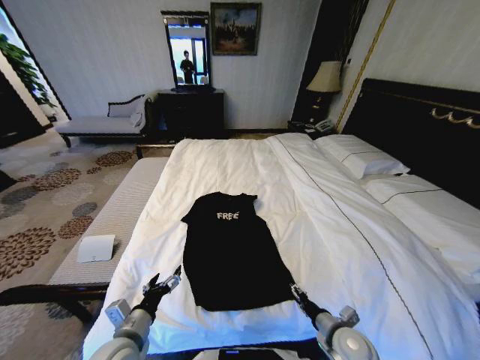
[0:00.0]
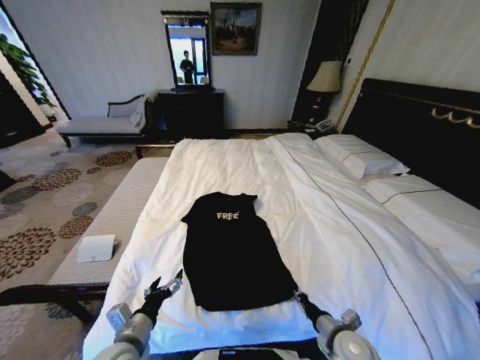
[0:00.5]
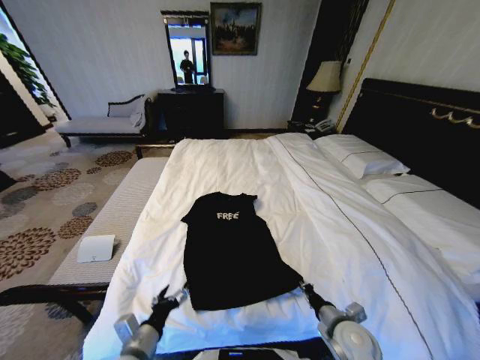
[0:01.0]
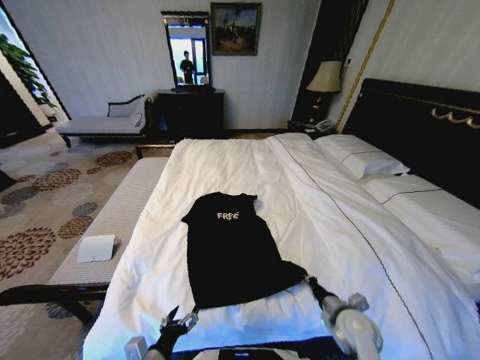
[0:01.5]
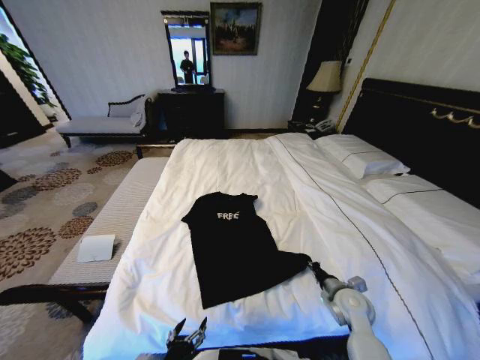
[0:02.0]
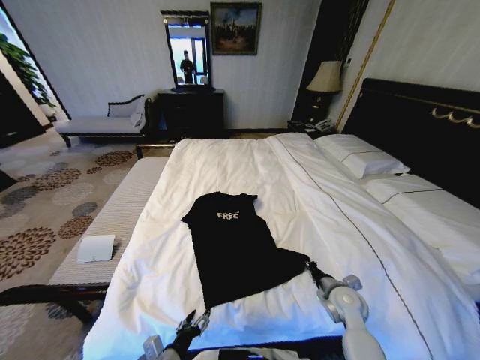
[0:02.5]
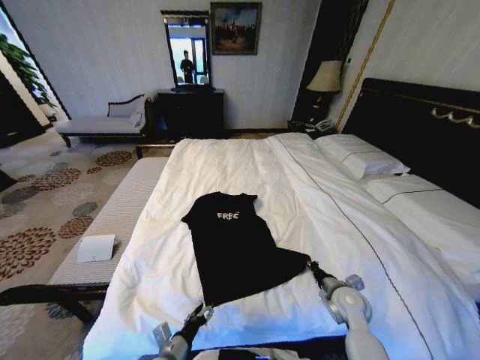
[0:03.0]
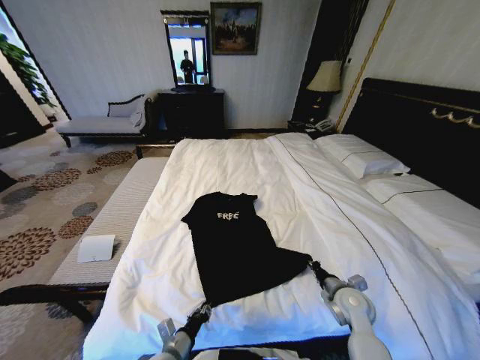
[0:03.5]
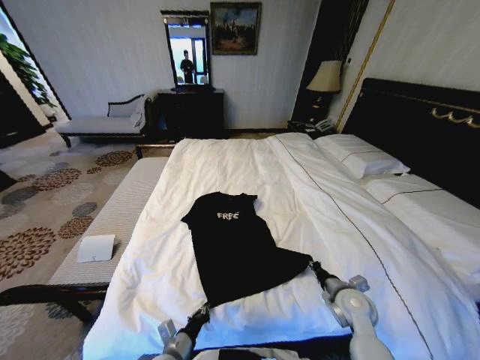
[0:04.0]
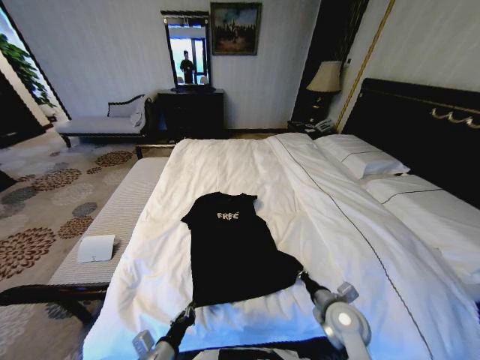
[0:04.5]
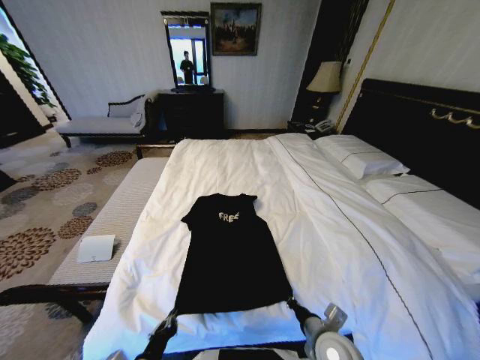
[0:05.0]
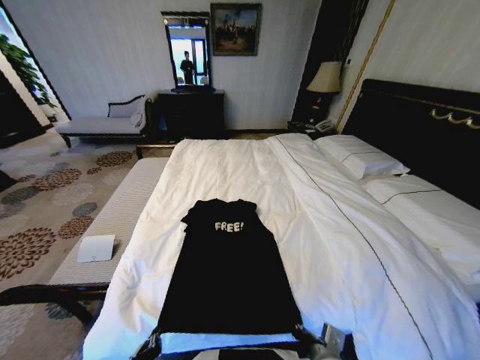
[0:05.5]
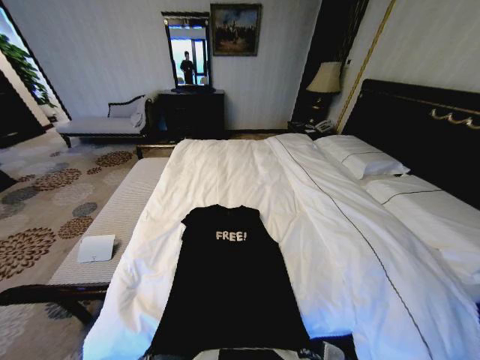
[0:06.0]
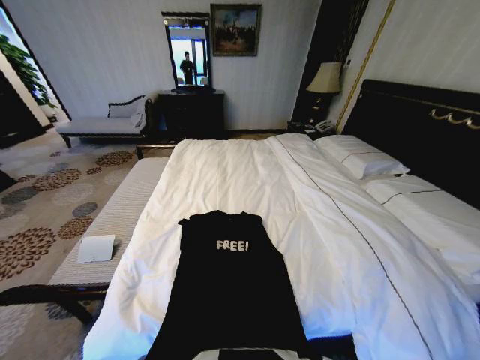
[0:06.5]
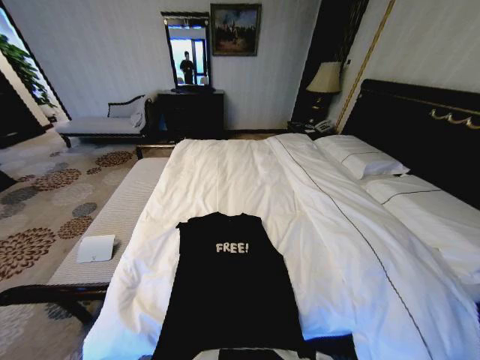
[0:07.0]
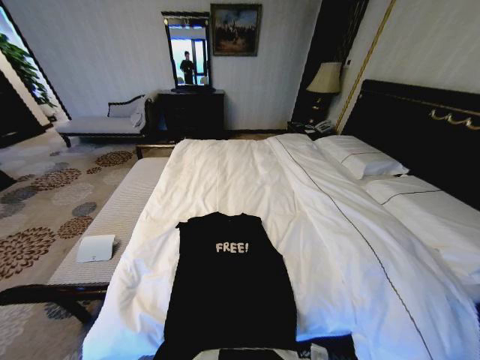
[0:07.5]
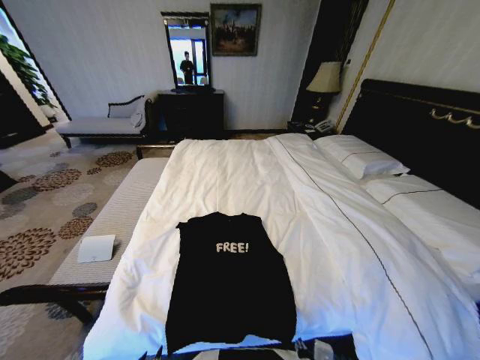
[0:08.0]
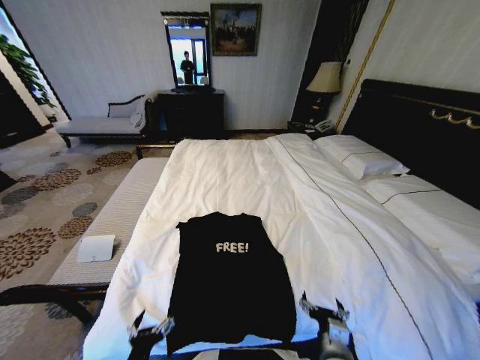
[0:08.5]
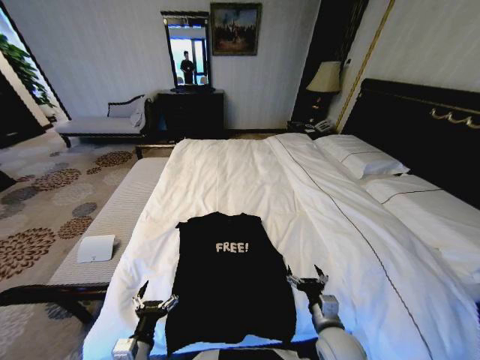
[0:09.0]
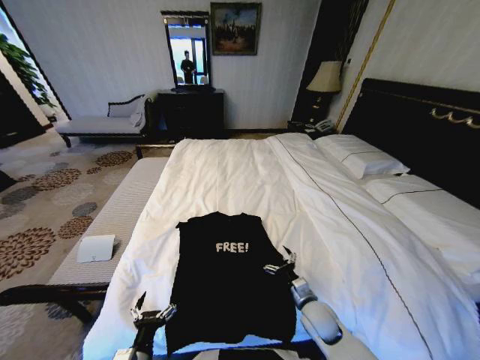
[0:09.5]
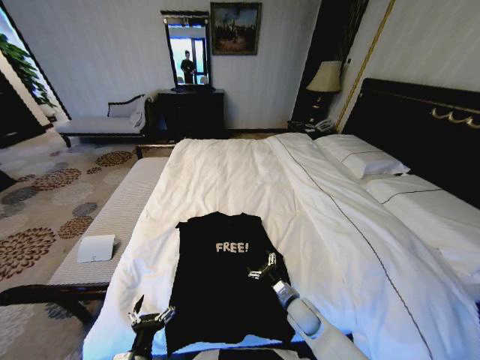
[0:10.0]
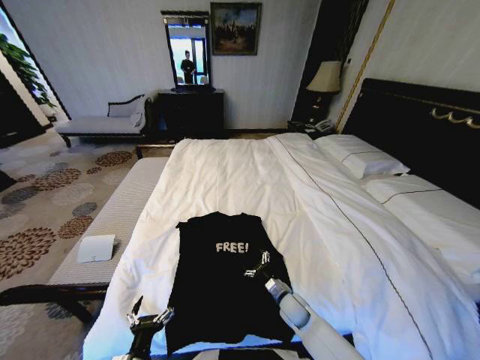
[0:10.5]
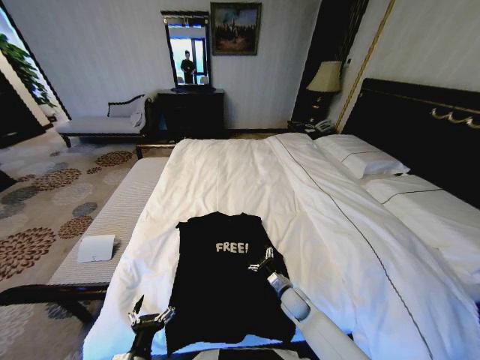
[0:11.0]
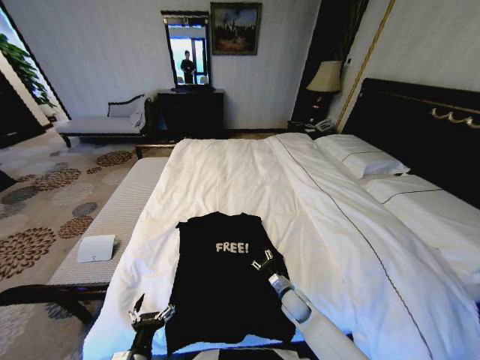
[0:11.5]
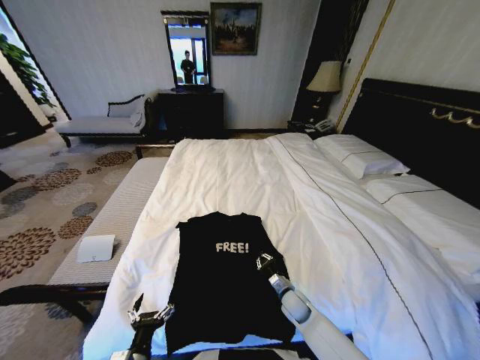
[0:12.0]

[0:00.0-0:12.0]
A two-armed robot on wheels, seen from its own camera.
Task of the whole recording: Fold the clothes on the bed.
0:00.0 to 0:02.0: The right gripper travels forward by some 10 cm, and closes up. The left gripper travels backward and downward by about 10 cm.
0:02.0 to 0:04.0: The left gripper moves forward and downward, roughly 10 cm, and closes its fingers.
0:04.0 to 0:06.0: The left gripper travels backward, upward and to the left by about 20 cm. The right gripper travels backward and to the left by about 25 cm.
0:06.0 to 0:08.0: The left gripper opens. The right gripper opens its fingers.
0:08.0 to 0:10.0: The left gripper moves forward, approximately 5 cm, and opens, while the right gripper moves forward and downward, about 20 cm, and opens up.
0:10.0 to 0:12.0: The right gripper changes place by about 5 cm, and closes up.

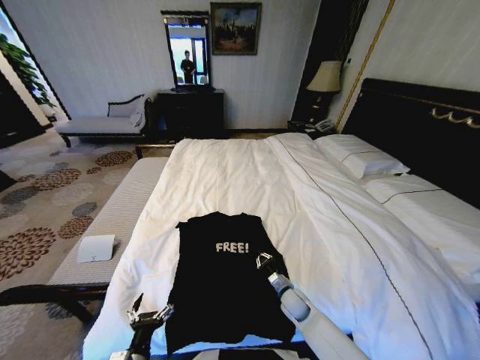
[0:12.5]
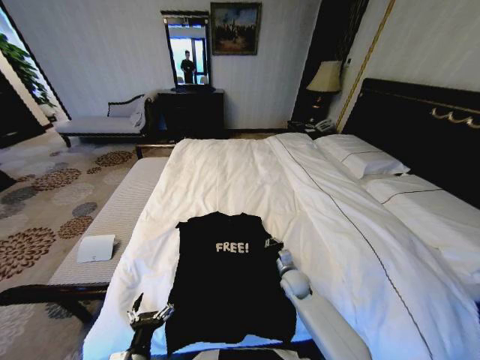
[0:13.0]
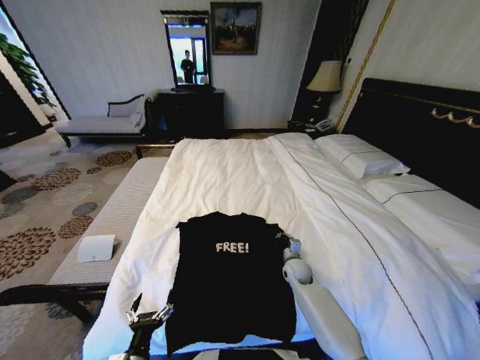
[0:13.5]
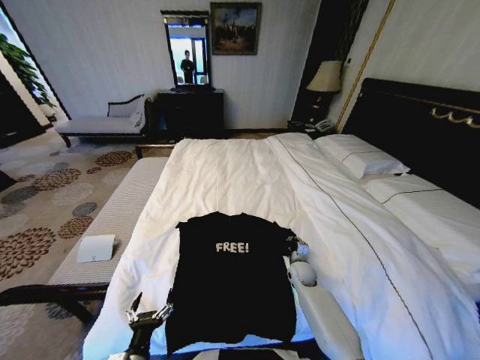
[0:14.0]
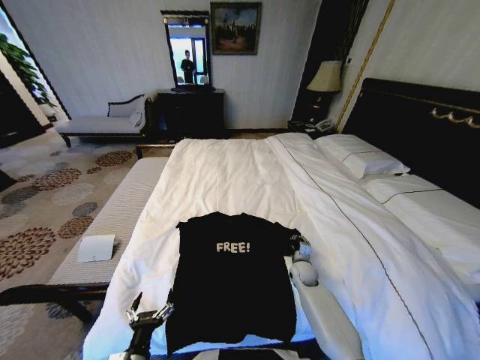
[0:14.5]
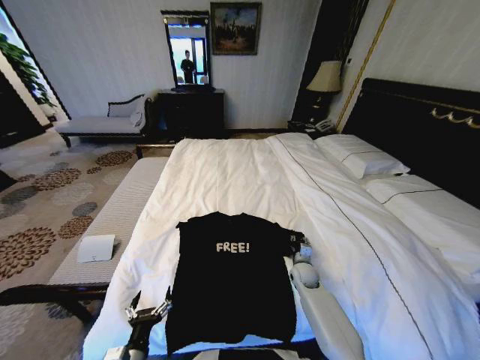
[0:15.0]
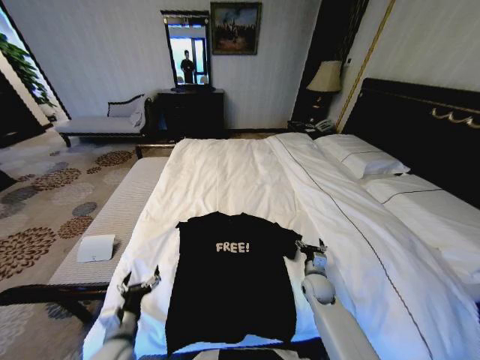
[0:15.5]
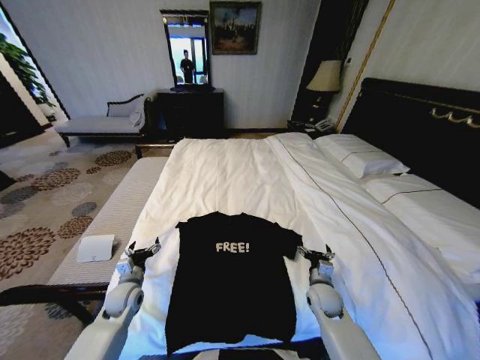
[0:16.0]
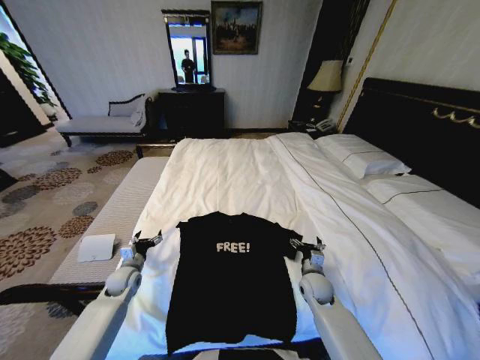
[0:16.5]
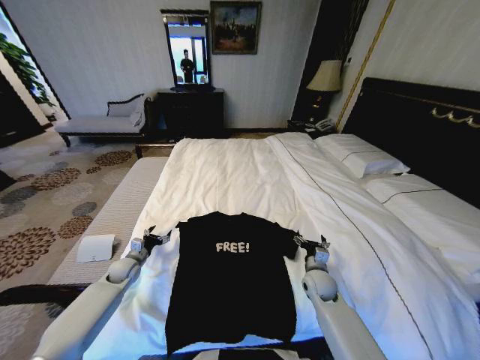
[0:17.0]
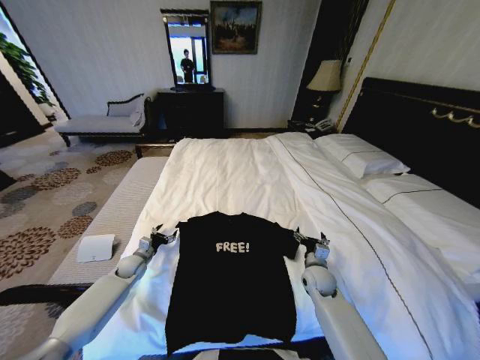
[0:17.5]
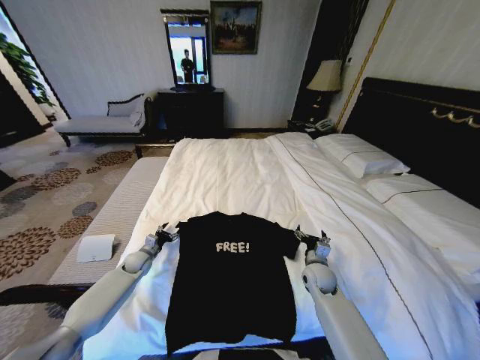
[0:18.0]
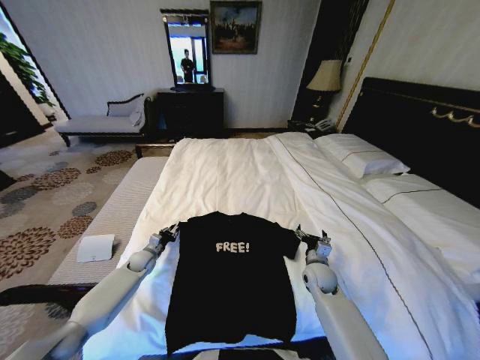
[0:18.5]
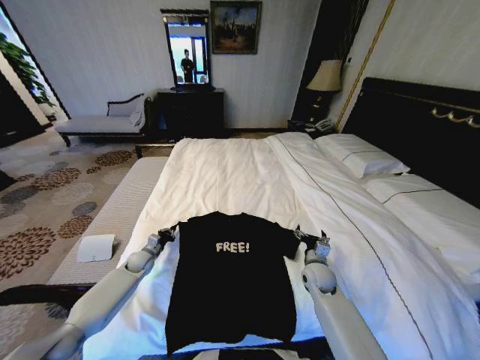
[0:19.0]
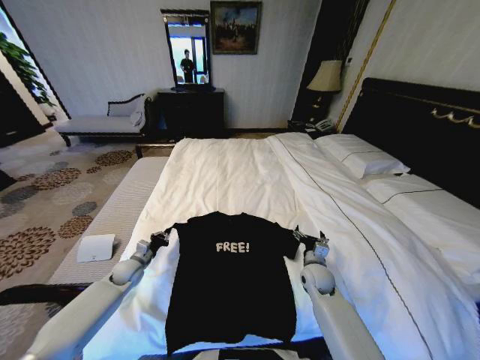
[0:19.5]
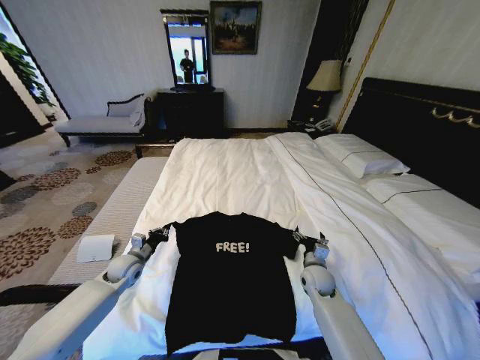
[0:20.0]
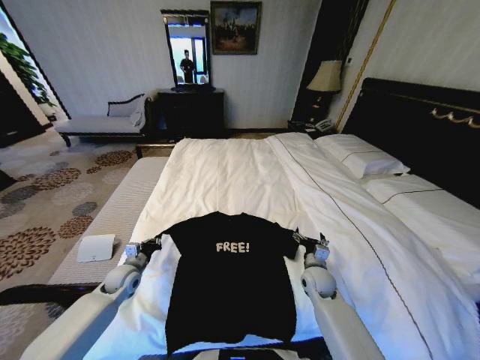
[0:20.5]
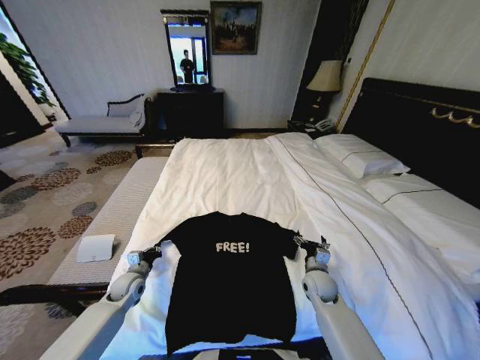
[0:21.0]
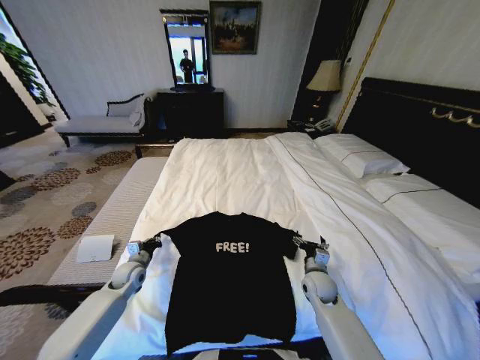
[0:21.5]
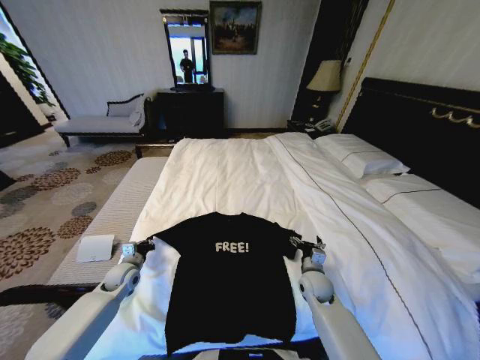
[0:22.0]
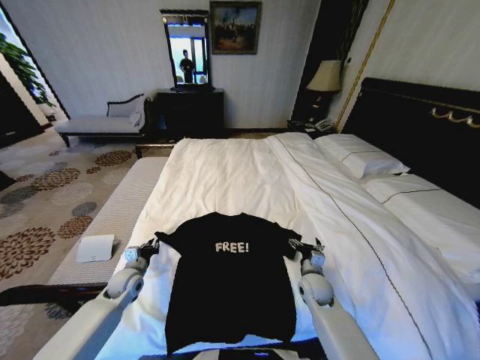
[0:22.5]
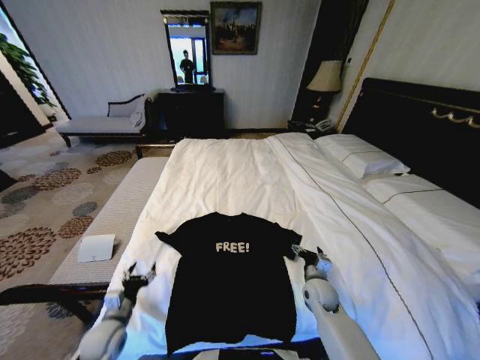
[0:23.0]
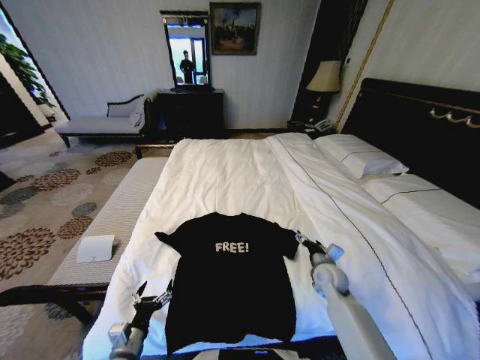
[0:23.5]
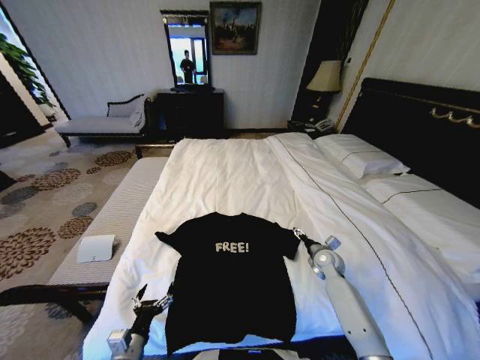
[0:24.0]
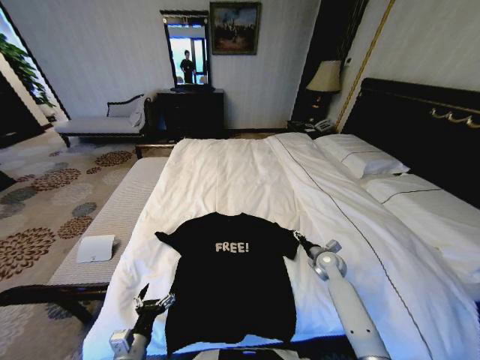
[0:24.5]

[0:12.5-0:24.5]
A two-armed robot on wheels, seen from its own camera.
Task of the whole recording: Fold the clothes on the bed.
0:12.5 to 0:14.5: The right gripper goes roughly 10 cm forward and to the right.
0:14.5 to 0:16.5: The left gripper moves forward and to the left, about 30 cm; the right gripper moves backward, about 5 cm, and opens.
0:16.5 to 0:18.5: The left gripper shifts some 10 cm forward, and closes.
0:18.5 to 0:20.5: The left gripper is displaced backward and upward by about 10 cm.
0:20.5 to 0:22.5: The grippers stay close to where they were, moving slightly.
0:22.5 to 0:24.5: The right gripper is displaced to the right and forward by about 10 cm. Meanwhile the left gripper travels backward by about 25 cm, and opens its fingers.

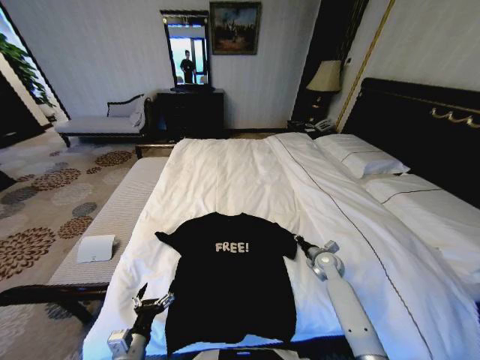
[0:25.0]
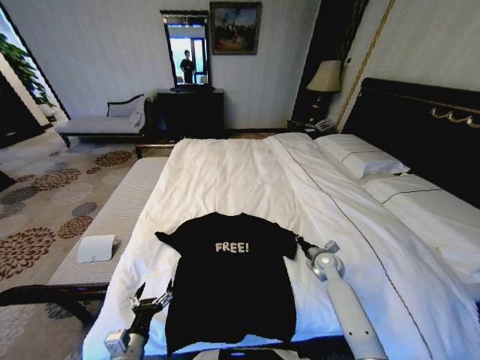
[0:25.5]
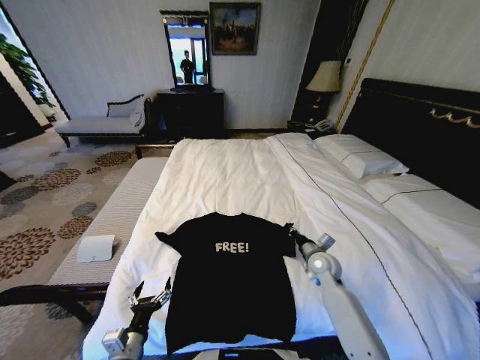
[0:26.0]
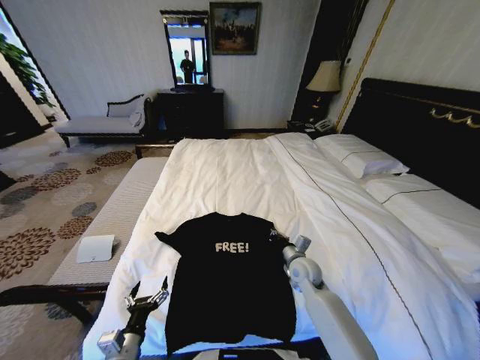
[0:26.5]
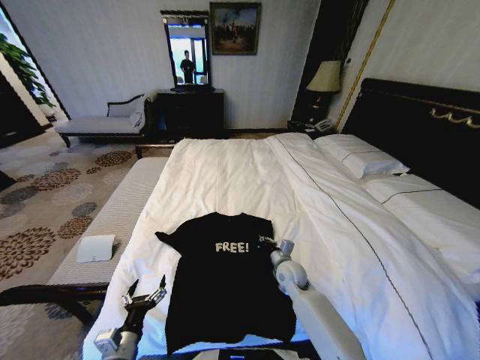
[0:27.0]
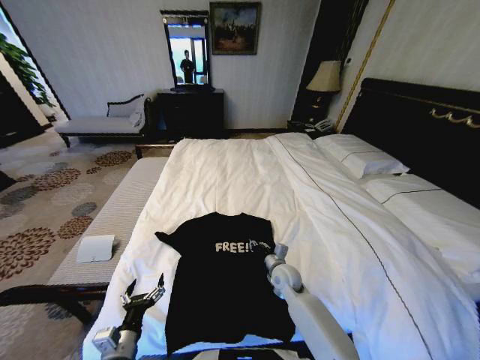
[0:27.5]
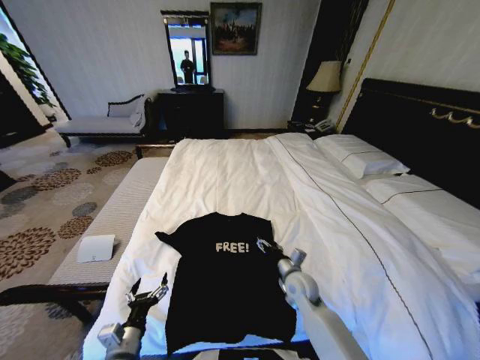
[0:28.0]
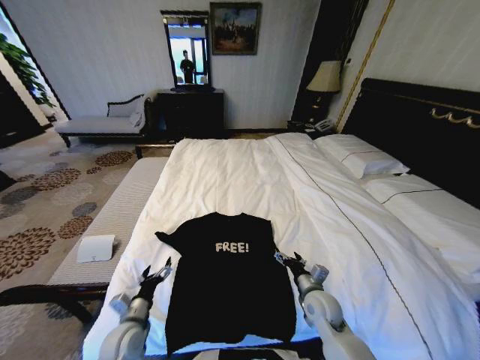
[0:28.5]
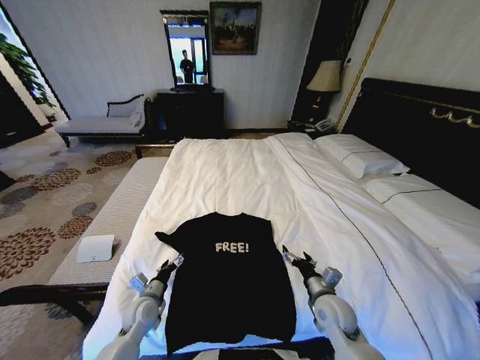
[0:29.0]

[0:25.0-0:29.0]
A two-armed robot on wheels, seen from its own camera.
Task of the whole recording: Fold the clothes on the bed.
0:25.0 to 0:27.0: The right gripper moves to the left, roughly 15 cm.
0:27.0 to 0:29.0: The right gripper travels backward and to the right by some 15 cm, and opens its fingers; the left gripper travels forward by some 15 cm.
